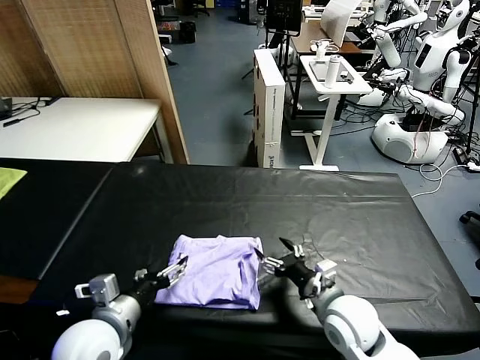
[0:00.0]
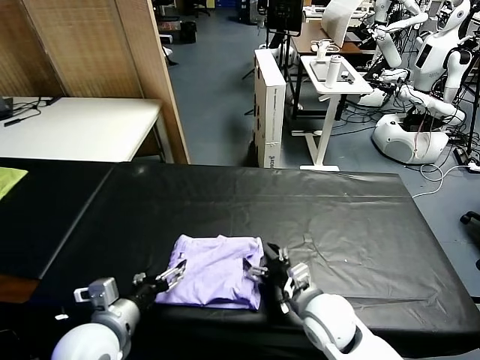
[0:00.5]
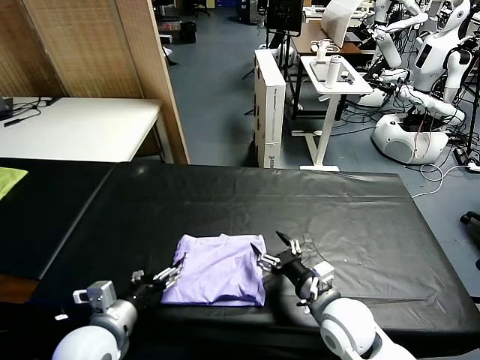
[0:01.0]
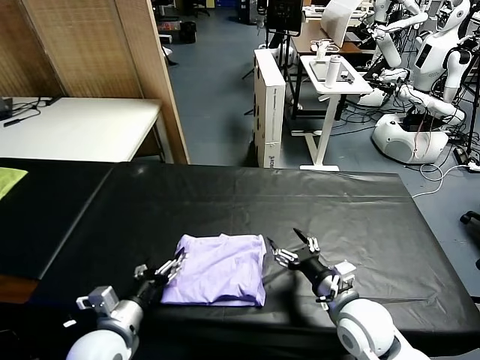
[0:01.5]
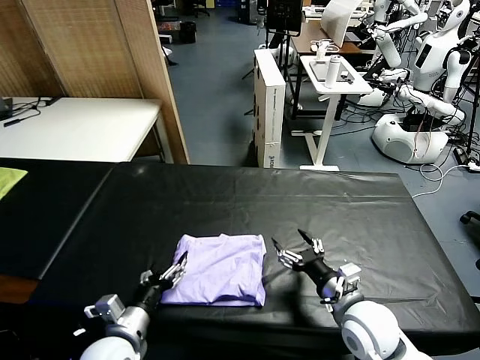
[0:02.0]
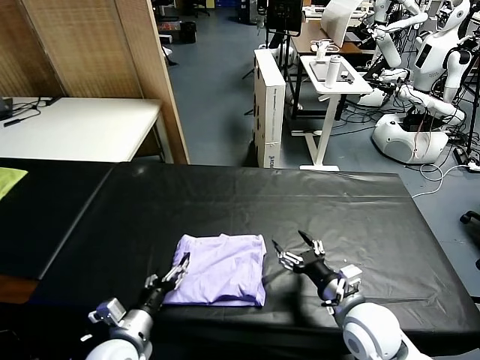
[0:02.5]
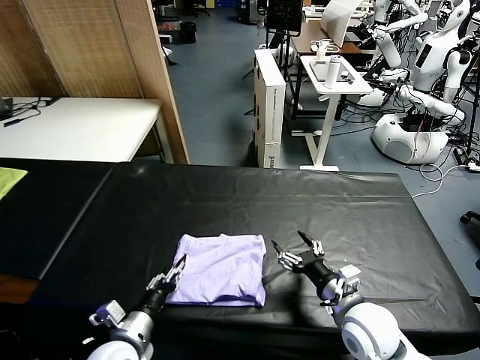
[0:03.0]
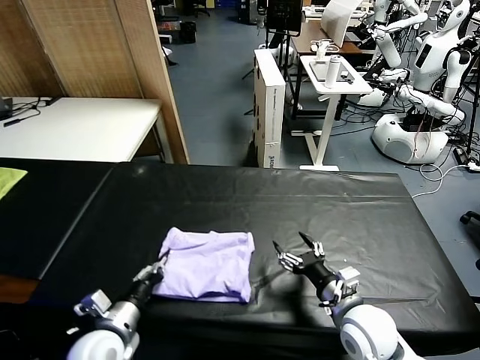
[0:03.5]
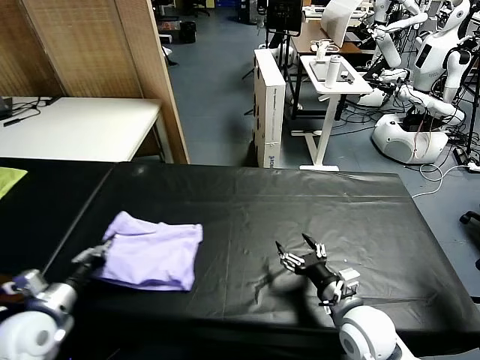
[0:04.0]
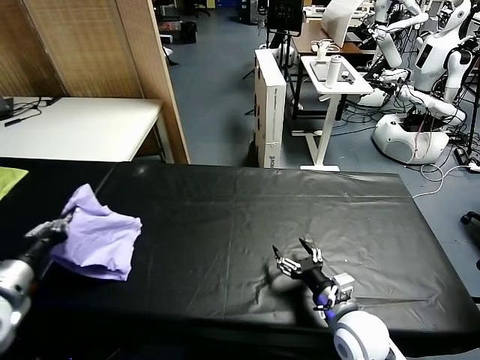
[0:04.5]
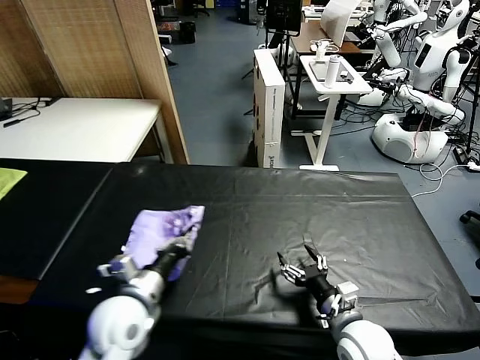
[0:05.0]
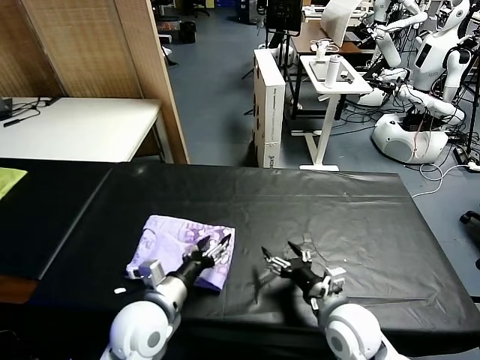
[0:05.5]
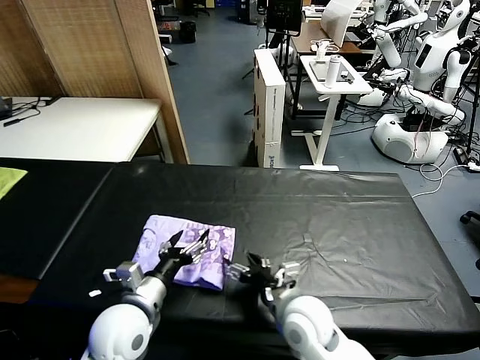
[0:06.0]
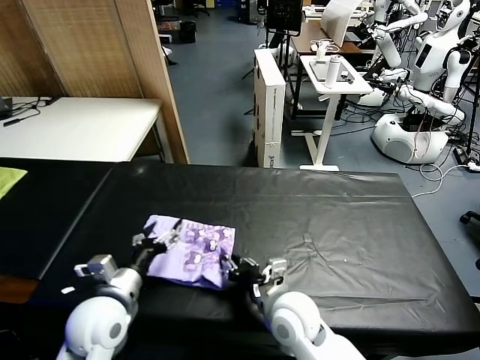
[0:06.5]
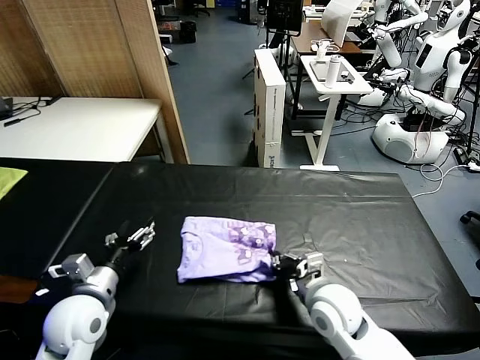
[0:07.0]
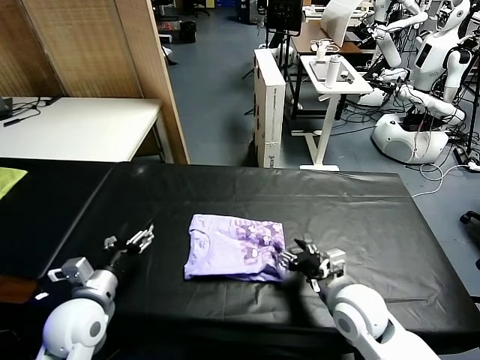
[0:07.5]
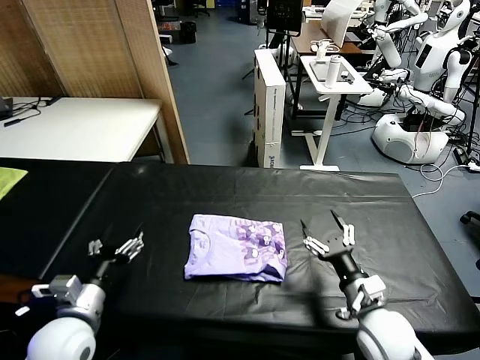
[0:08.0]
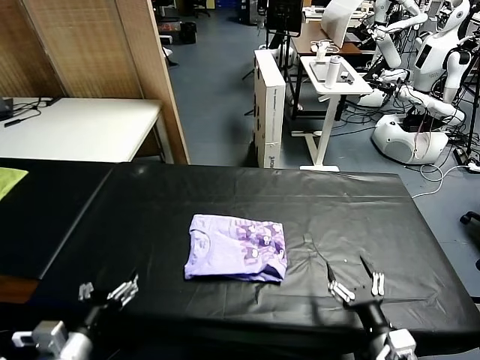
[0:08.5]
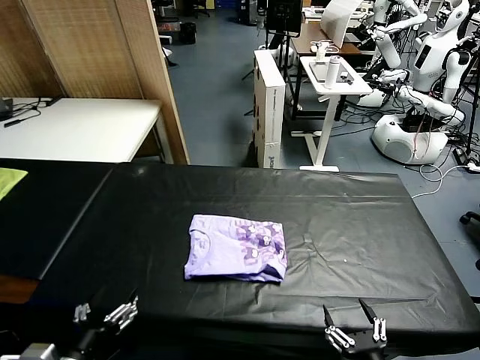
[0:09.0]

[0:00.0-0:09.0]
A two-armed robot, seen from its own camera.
Task of the whole recording: fold and organize the clothes.
Step, 0.0 to 5.5 s: Flip the folded clothes over with left gripper.
Step, 6.0 to 7.5 s: Drag the clothes to the center of the table.
0.0 to 2.0 s: The left gripper moves downward, roughly 10 cm.
2.0 to 4.5 s: The left gripper goes approximately 25 cm to the left and upward, and closes up.
4.5 to 7.0 s: The right gripper heads to the left, covering about 5 cm, and closes up. The left gripper heads to the right and downward, covering some 15 cm, and opens.
7.0 to 9.0 s: The right gripper moves backward and to the right, approximately 25 cm, and opens its fingers. Meanwhile the left gripper goes approximately 15 cm backward.

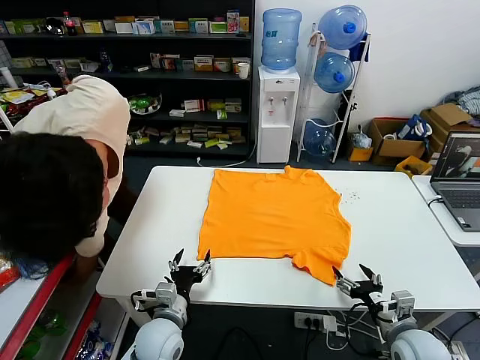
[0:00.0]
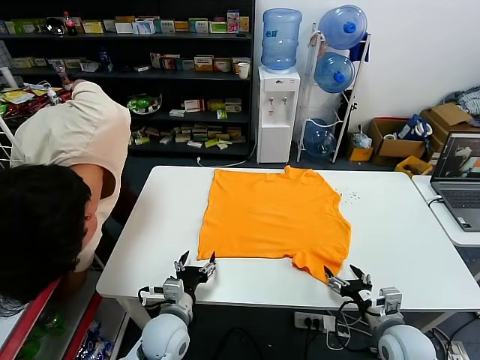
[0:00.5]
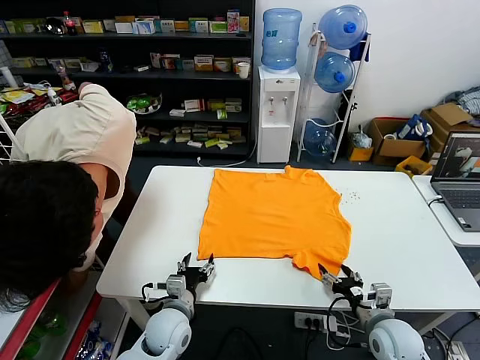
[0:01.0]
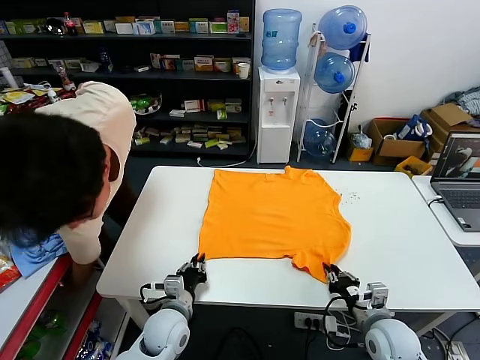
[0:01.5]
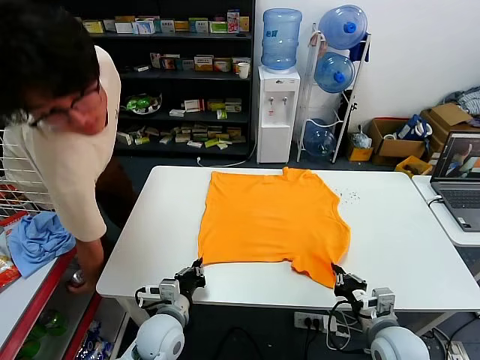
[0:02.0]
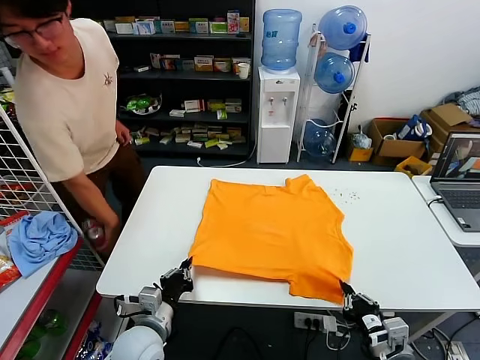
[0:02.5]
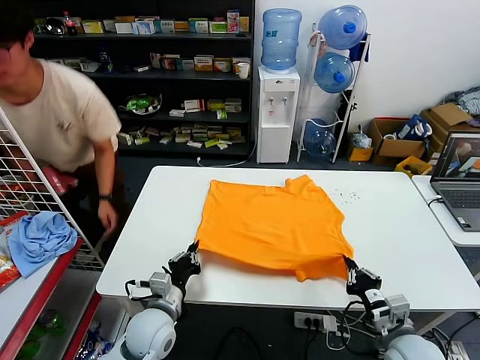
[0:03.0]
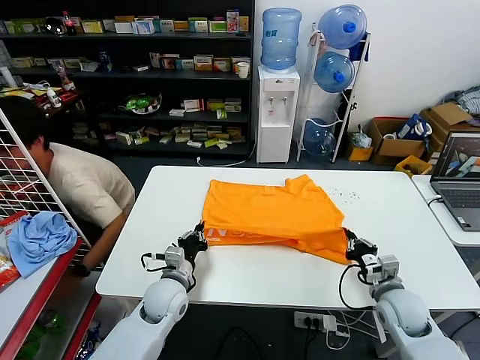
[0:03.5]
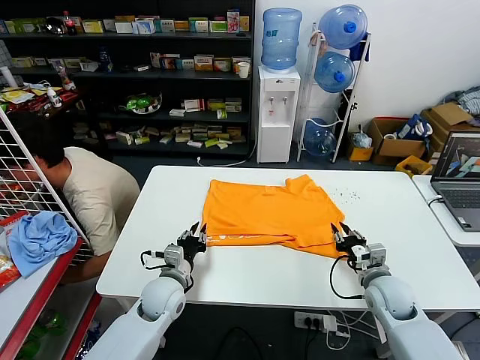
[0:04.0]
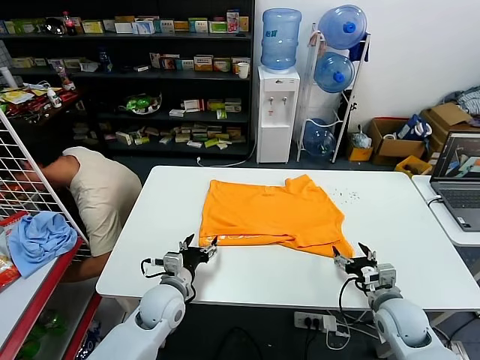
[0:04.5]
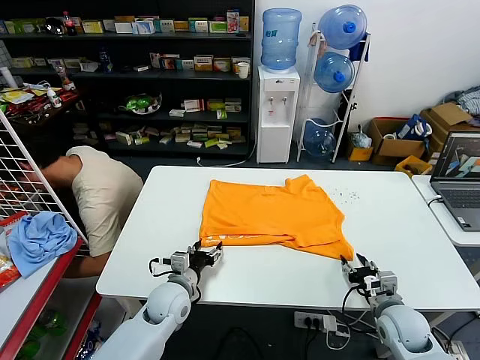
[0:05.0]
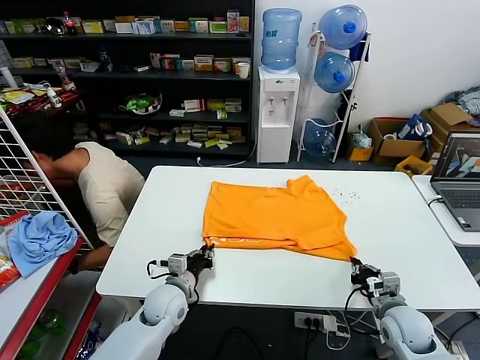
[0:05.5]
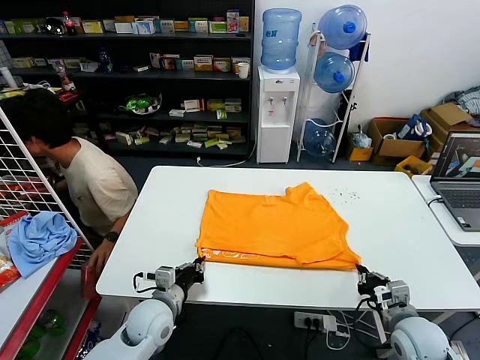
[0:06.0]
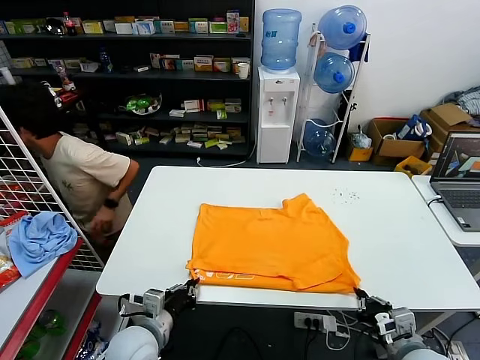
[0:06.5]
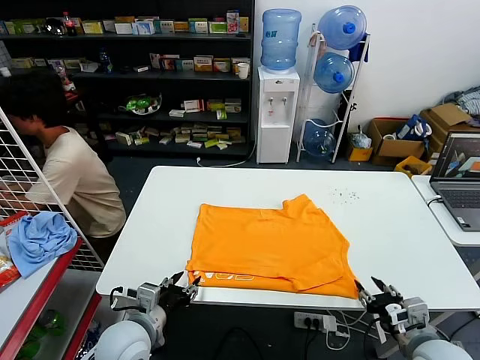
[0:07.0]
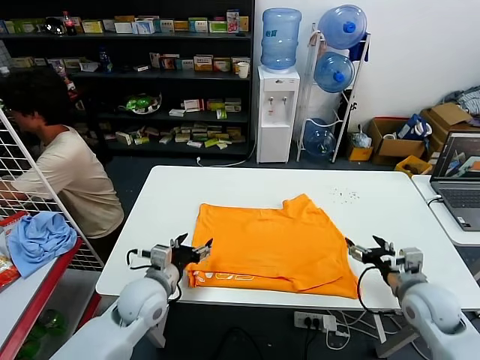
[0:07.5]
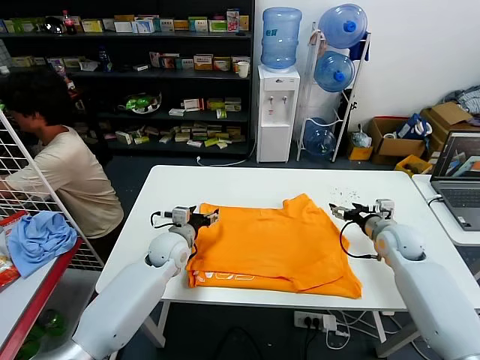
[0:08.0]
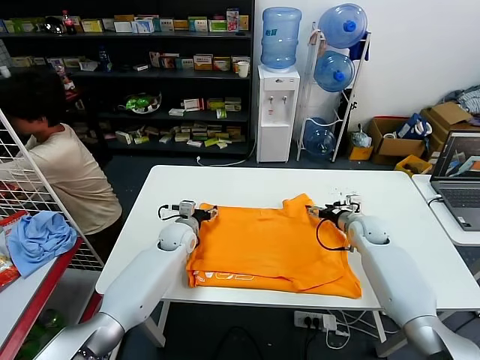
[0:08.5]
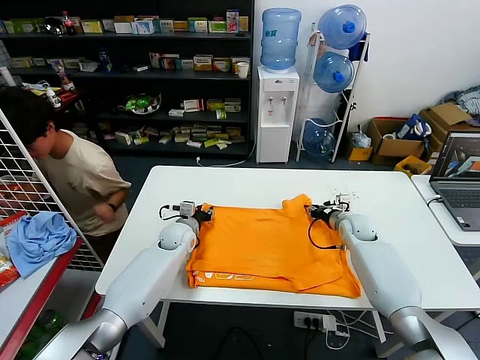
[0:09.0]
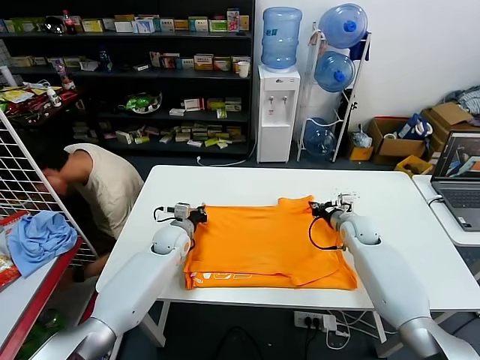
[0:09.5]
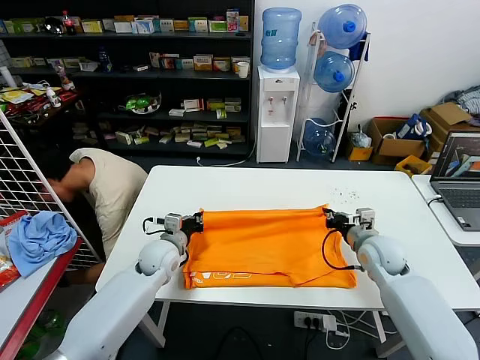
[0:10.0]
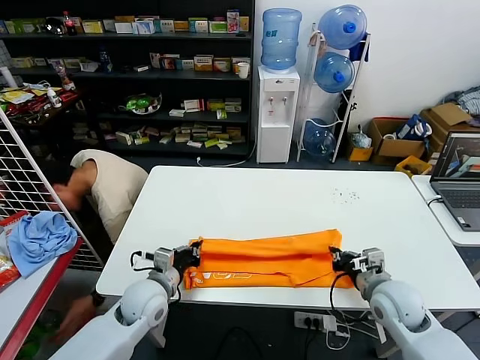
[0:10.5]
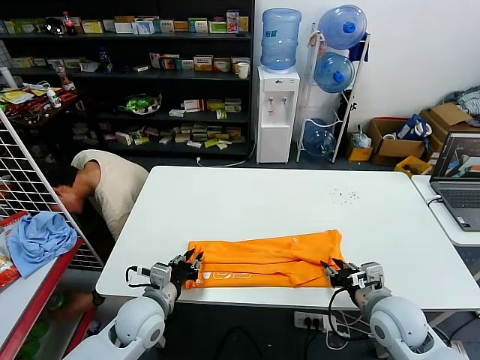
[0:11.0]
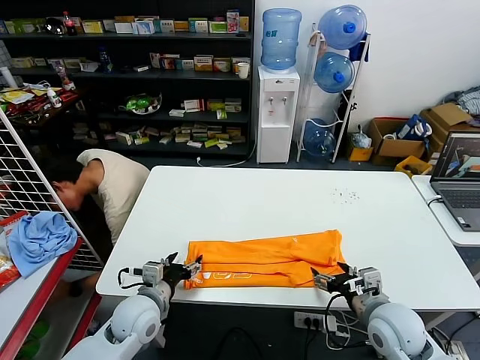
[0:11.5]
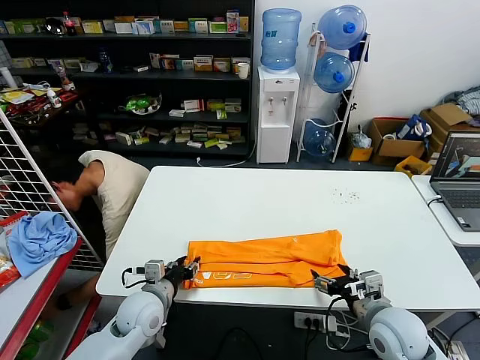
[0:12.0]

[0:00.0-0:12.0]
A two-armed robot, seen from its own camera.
Task of the whole recording: fold and organize the clothes.
Step, 0.0 to 1.5 s: use both grippers simultaneously to clamp the lower edge of the clothing fabric.
Step, 2.0 to 4.0 s: use both grippers to drag the lower edge of the fabric forward and fold it over the upper edge.
Step, 4.5 to 6.5 s: Drag the clothes downward with both gripper.
Step, 7.0 to 9.0 s: use both grippers simultaneously to clamp the upper edge of the clothing fabric.
Step, 9.5 to 10.5 s: use both grippers to drag the upper edge of the fabric backward and fold it over the lower edge.
2.0 to 4.0 s: Both grippers travel together forward, roughly 10 cm. The left gripper opens, while the right gripper opens its fingers.
4.0 to 6.0 s: The left gripper moves backward, about 5 cm, and opens and closes again. The right gripper is displaced backward by some 10 cm, and closes.
6.0 to 8.0 s: The grippers both shift forward by approximately 20 cm. The right gripper opens. Meanwhile the left gripper opens.
8.0 to 10.0 s: The left gripper reaches some 5 cm forward, then returns, and closes its fingers. Meanwhile the right gripper travels backward and to the left by some 10 cm, and closes its fingers.
10.0 to 12.0 s: Both grippers move backward, about 15 cm. The right gripper opens; the left gripper opens its fingers.

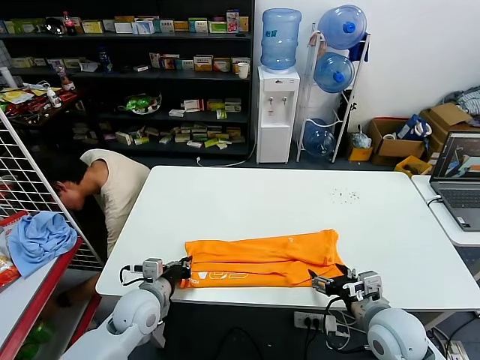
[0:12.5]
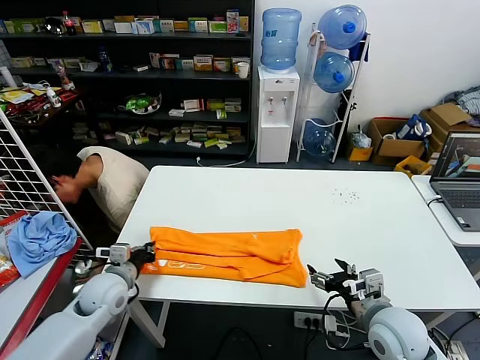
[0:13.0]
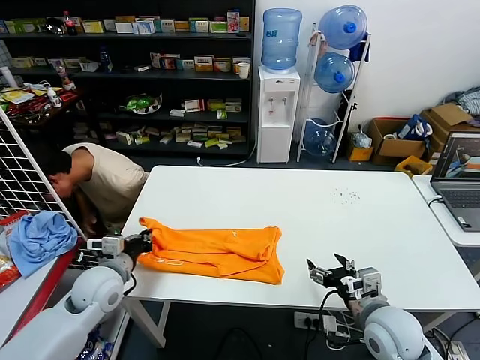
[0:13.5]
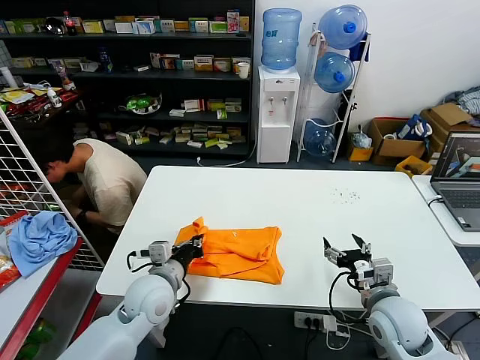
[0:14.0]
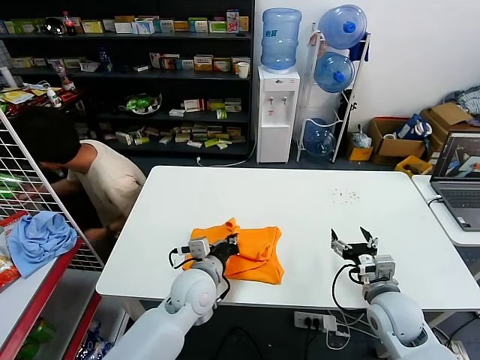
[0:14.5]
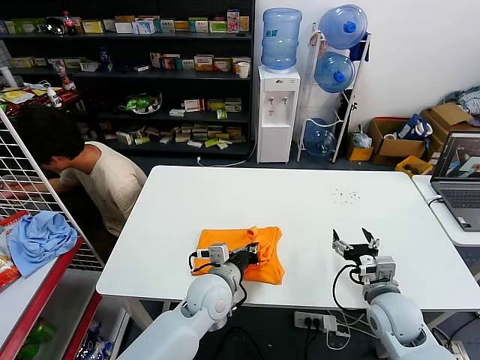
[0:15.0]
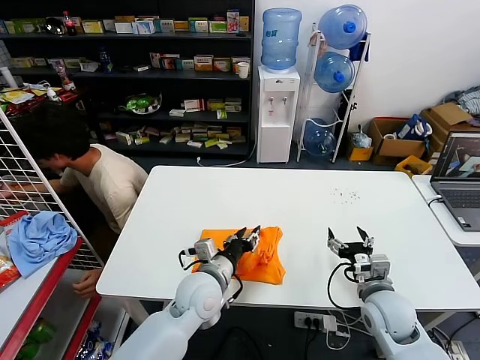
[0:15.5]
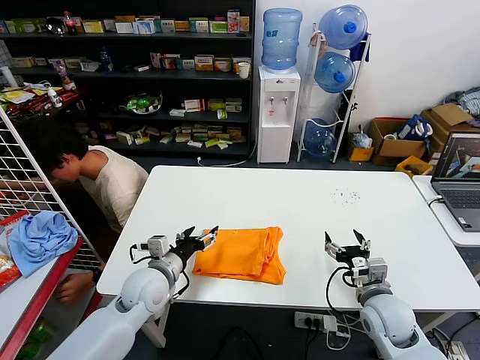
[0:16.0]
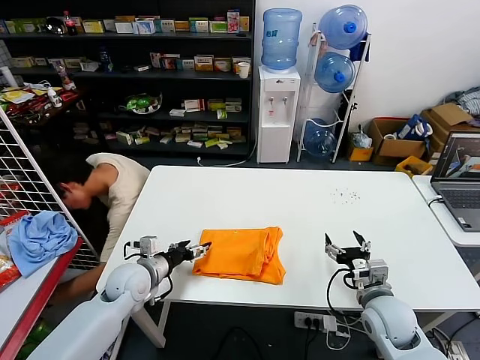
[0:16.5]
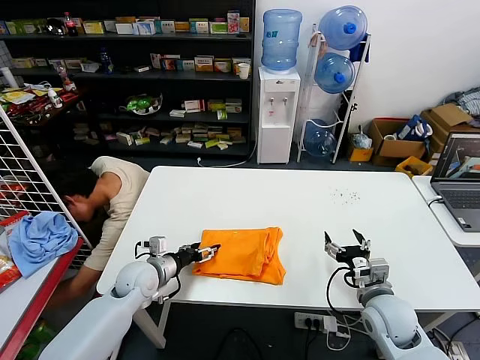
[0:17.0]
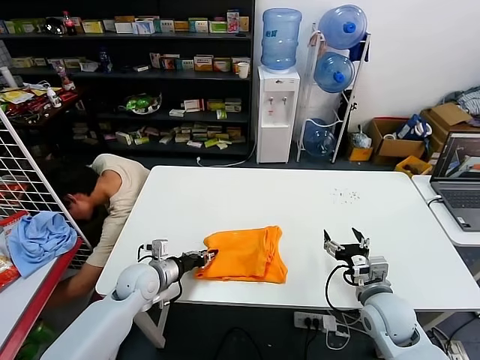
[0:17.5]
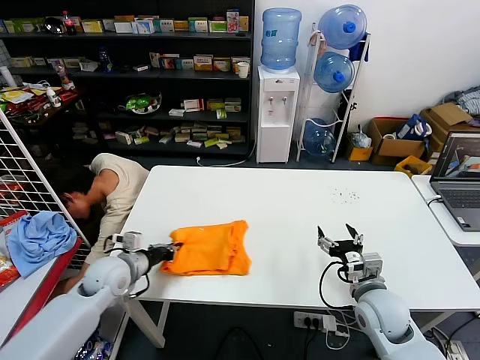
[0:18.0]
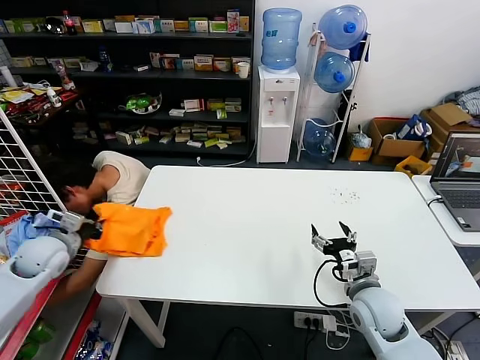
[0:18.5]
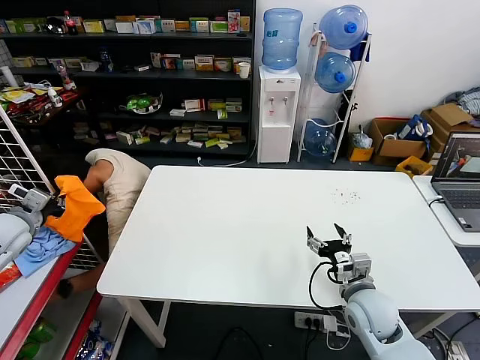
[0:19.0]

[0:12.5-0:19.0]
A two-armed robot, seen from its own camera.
Task of the whole recording: fold and organize the clothes.
Step, 13.0 to 15.0 s: use the left gripper to drag the left edge of the fabric to the left and folds it over the right edge.
12.5 to 14.5 s: The right gripper moves about 5 cm, while the left gripper moves to the right, about 15 cm.
14.5 to 17.0 s: The left gripper goes roughly 15 cm to the left, and opens up.
17.0 to 19.0 s: The left gripper is displaced to the left and upward by roughly 30 cm, and closes its fingers.
